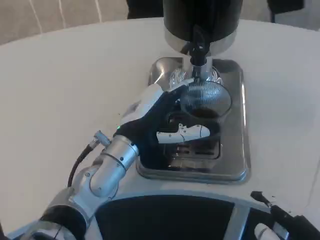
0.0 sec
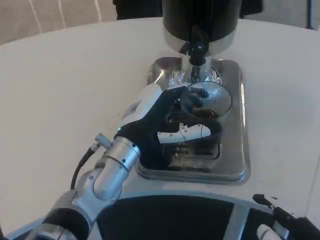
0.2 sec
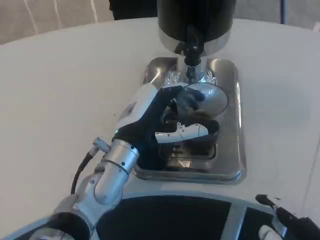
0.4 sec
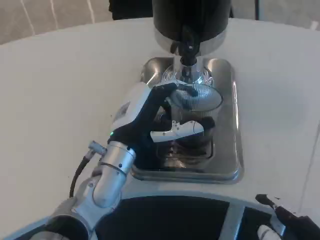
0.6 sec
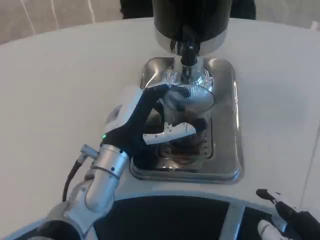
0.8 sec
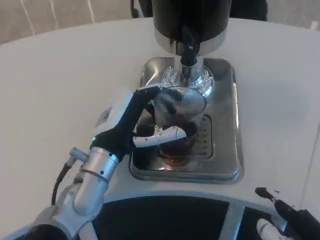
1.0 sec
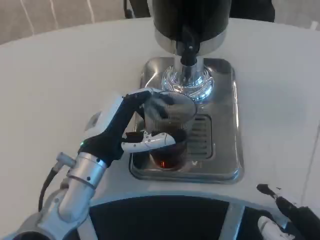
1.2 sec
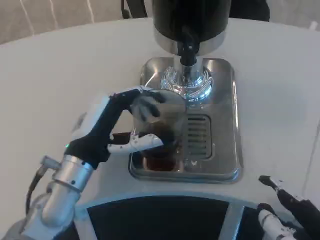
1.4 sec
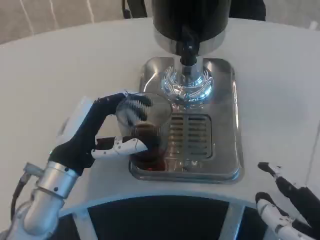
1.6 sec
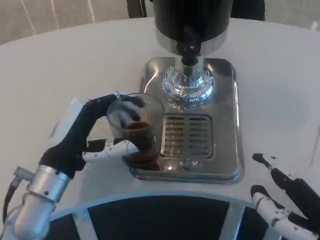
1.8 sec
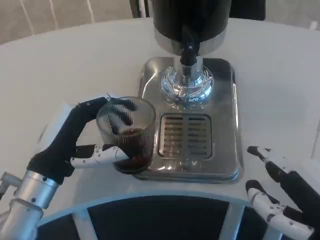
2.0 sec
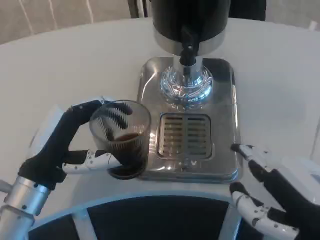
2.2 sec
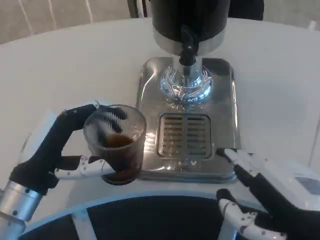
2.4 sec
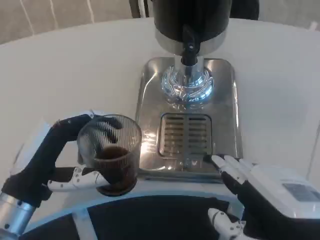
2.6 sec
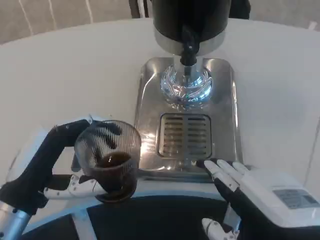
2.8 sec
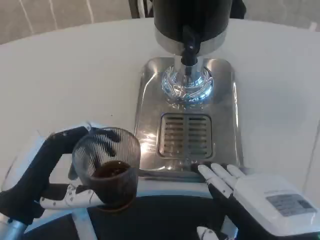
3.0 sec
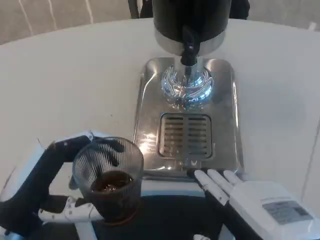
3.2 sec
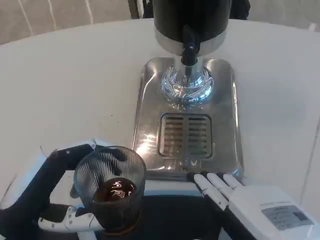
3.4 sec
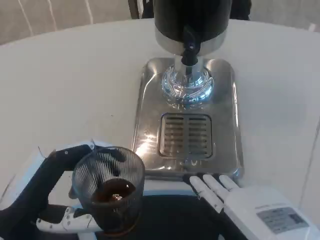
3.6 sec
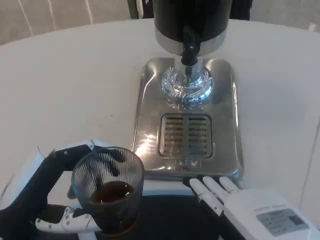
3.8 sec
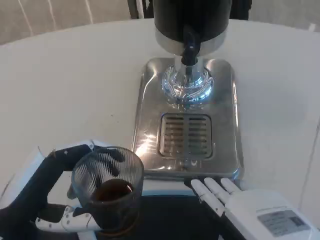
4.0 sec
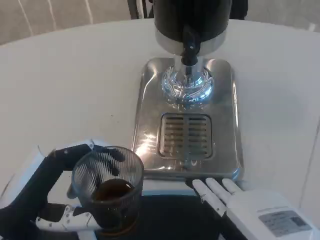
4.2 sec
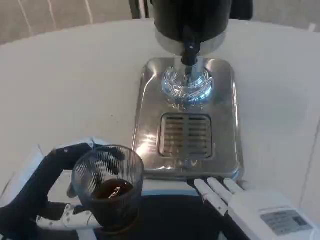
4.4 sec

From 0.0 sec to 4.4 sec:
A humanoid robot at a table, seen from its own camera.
Task of the whole recording: Grasp the cup under the faucet to collect the drink, then remove the cup.
From 0.0 sec to 1.4 sec: The left hand goes approximately 5 cm to the left.
From 1.4 sec to 3.0 sec: The left hand moves backward and to the left, some 10 cm.
From 3.0 sec to 4.4 sec: The hands stay close to where they were, moving slightly.

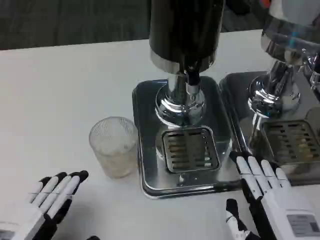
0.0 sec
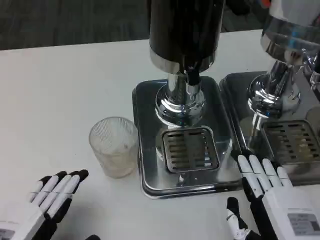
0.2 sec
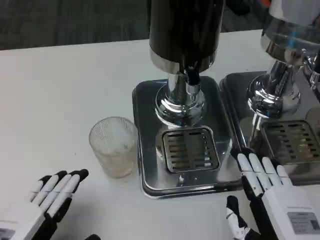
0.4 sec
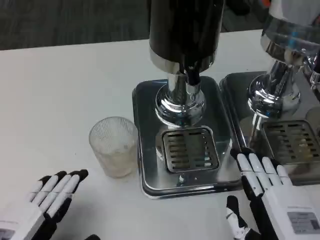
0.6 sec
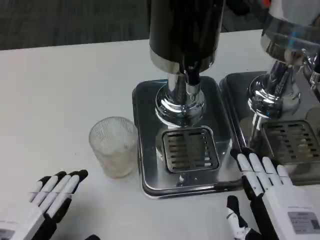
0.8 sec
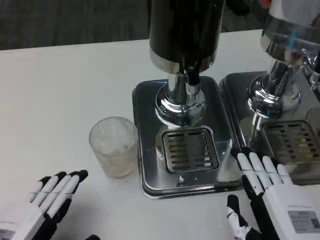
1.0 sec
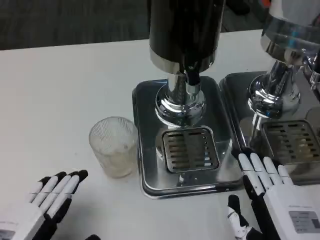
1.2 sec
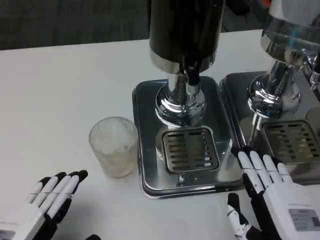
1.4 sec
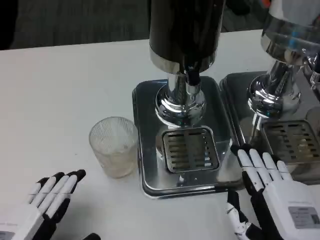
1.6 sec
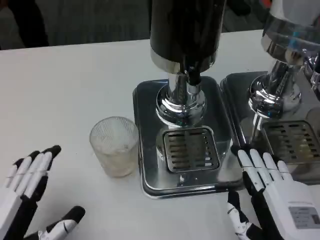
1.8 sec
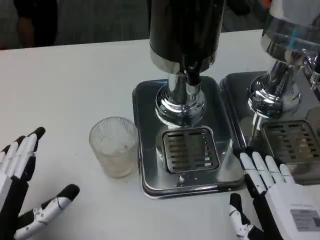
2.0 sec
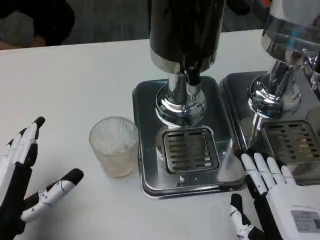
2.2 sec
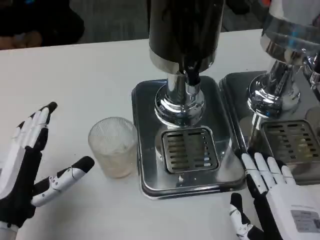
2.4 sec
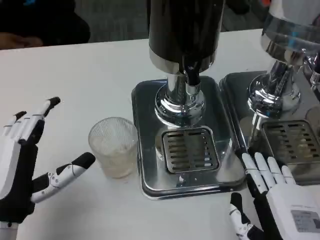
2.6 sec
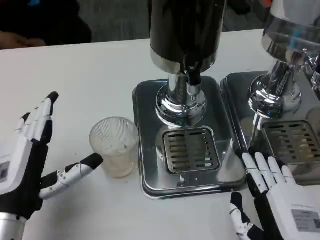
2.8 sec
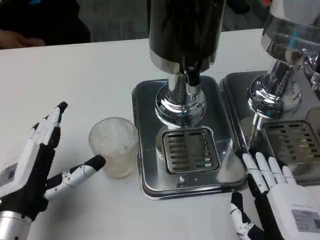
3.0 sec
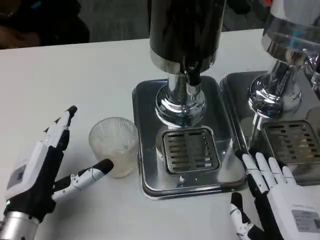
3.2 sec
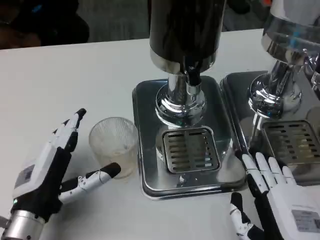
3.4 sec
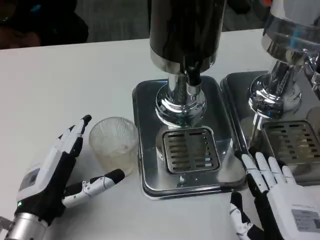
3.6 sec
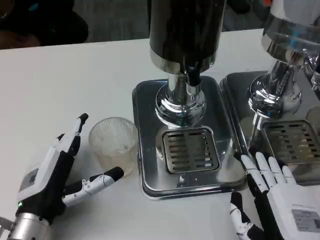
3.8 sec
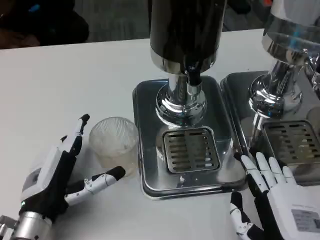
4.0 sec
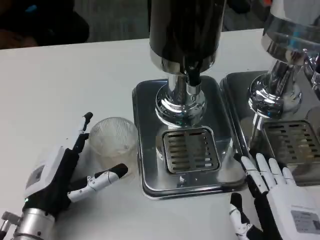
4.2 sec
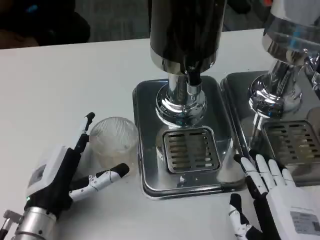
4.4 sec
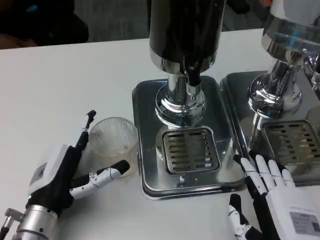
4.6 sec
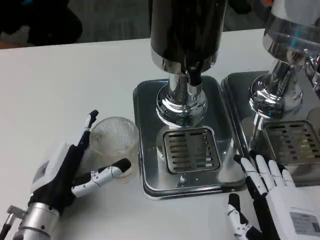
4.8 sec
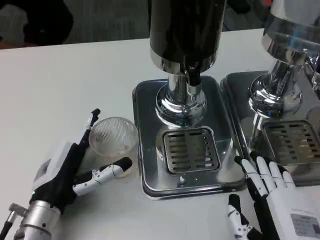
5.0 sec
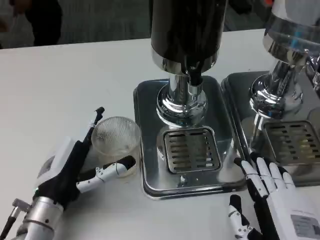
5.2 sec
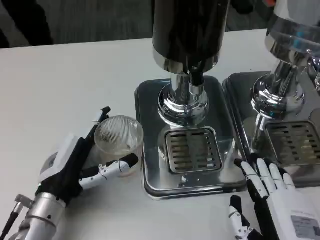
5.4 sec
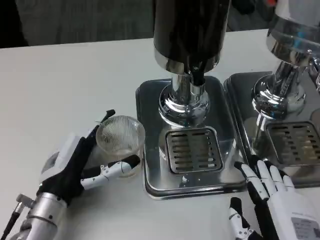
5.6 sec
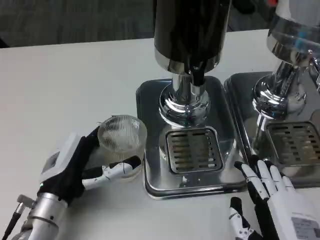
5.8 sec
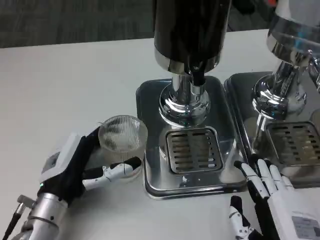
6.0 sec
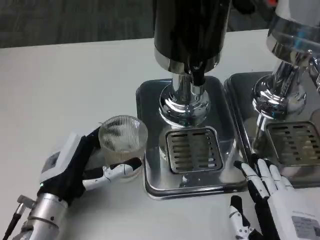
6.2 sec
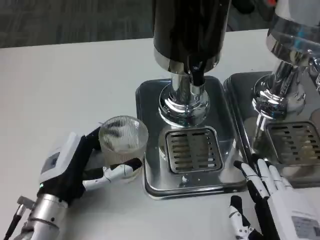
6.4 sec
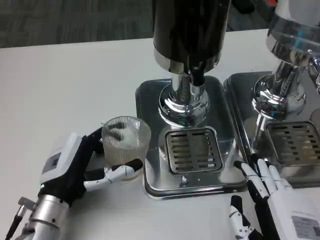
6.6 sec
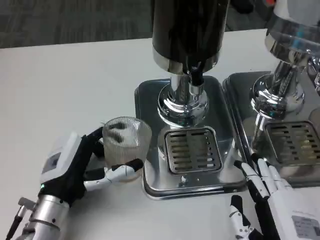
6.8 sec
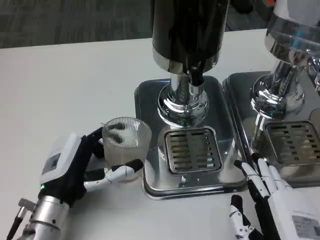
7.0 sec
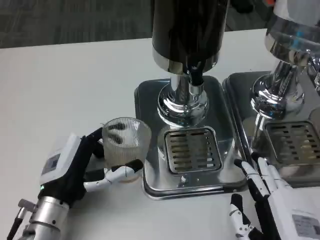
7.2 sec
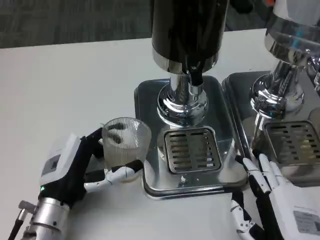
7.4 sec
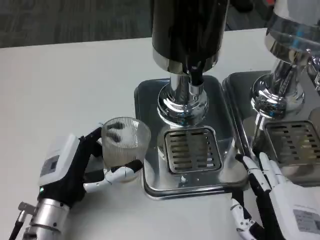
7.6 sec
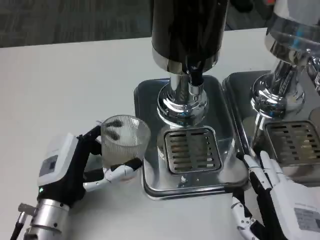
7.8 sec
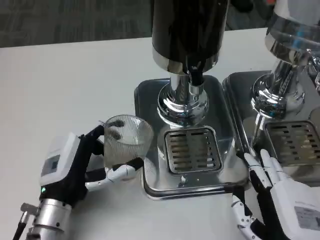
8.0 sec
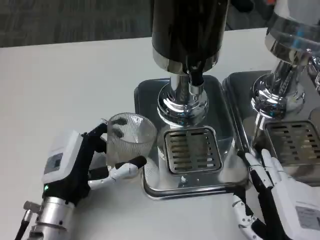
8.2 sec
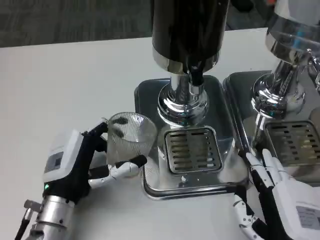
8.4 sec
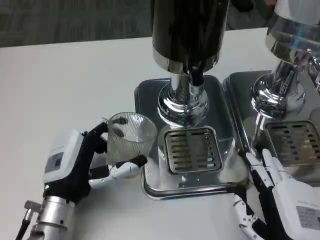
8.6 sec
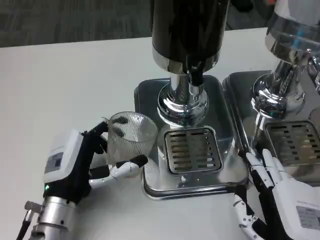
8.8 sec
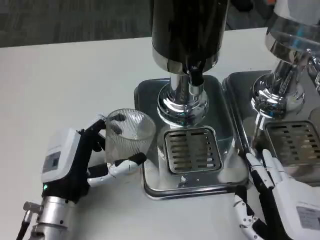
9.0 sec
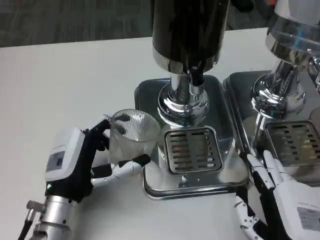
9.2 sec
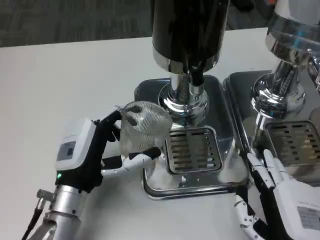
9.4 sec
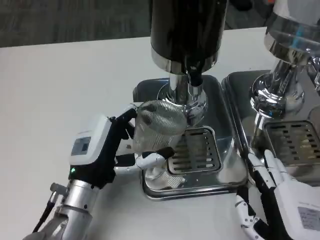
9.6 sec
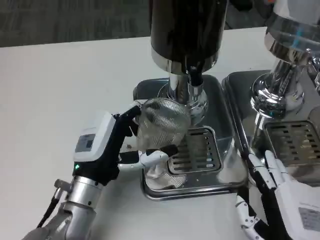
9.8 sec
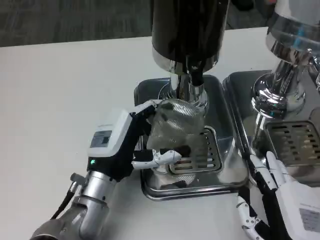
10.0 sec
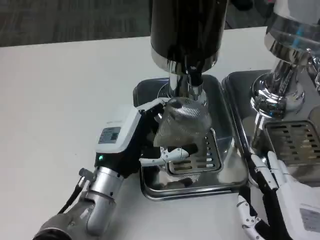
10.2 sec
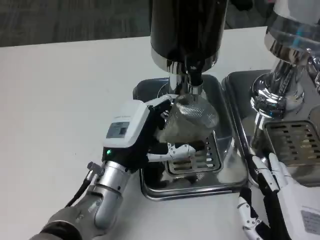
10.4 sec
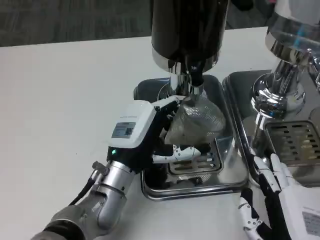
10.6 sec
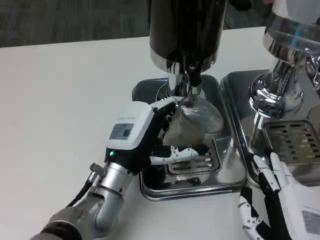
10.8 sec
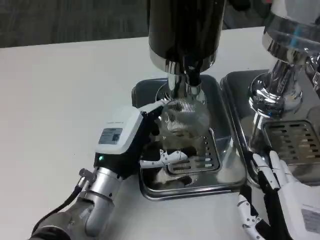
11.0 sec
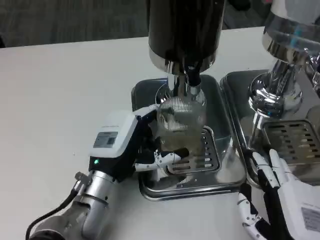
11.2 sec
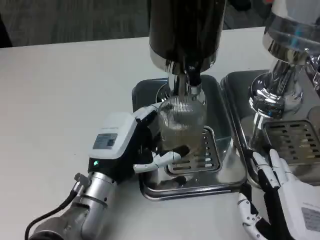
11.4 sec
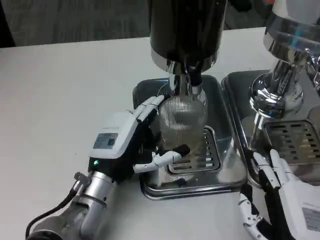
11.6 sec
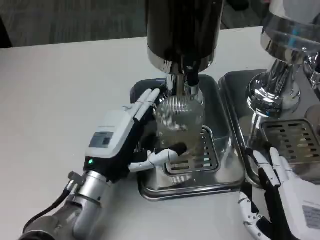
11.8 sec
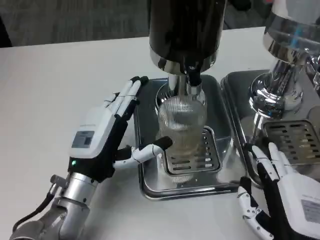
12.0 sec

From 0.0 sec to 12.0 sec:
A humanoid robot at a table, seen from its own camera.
Task of the whole recording: Grasp the cup under the faucet to collect the drink, then remove the cup.
From 0.0 sec to 1.6 sec: Neither hand changes place.
From 1.6 sec to 3.0 sec: The left hand travels forward by about 10 cm.
From 3.0 sec to 4.4 sec: The hands make only small movements.
From 6.0 sec to 9.0 sec: The hands stay close to where they were, moving slightly.
From 9.0 sec to 10.4 sec: The left hand heads to the right and forward, covering approximately 10 cm.
From 10.4 sec to 12.0 sec: The left hand ends up about 5 cm from where it was.

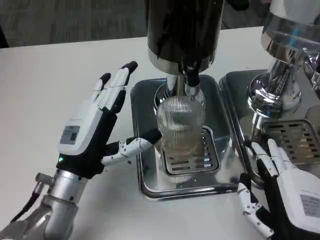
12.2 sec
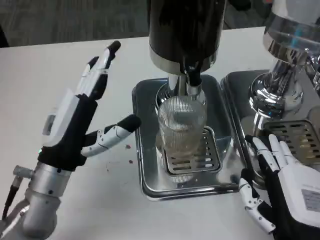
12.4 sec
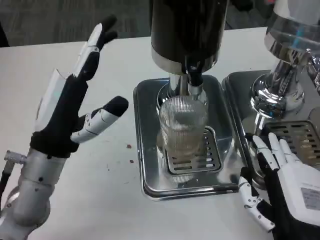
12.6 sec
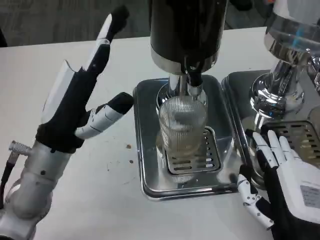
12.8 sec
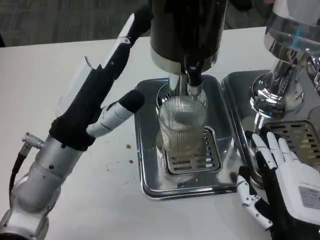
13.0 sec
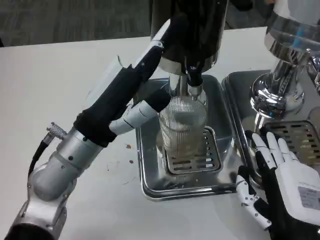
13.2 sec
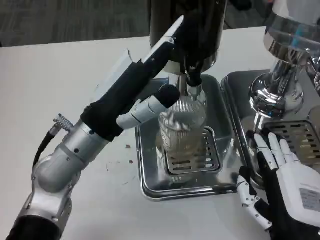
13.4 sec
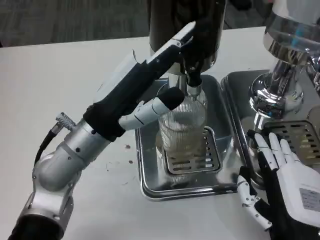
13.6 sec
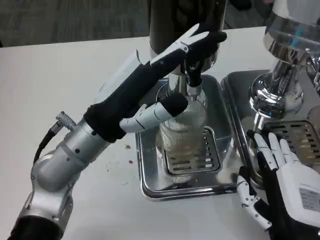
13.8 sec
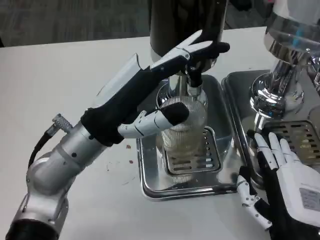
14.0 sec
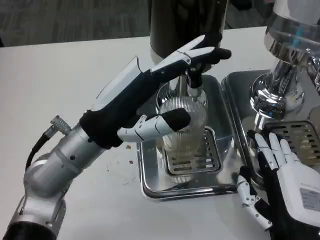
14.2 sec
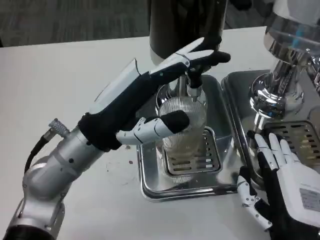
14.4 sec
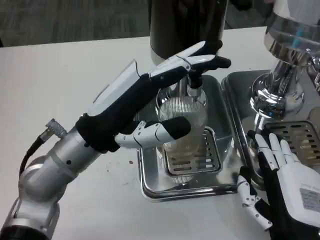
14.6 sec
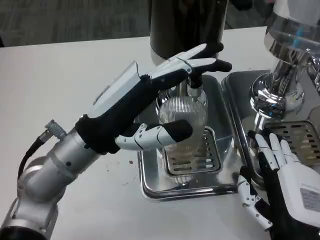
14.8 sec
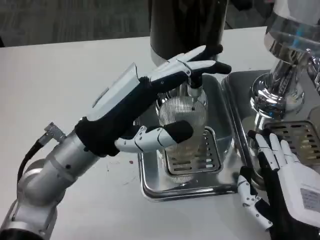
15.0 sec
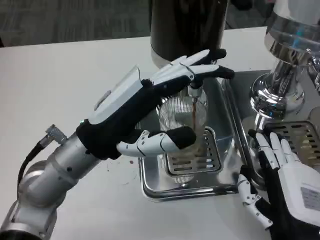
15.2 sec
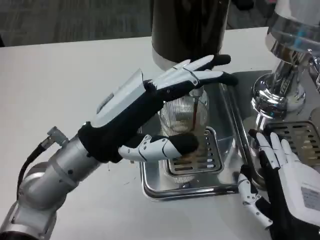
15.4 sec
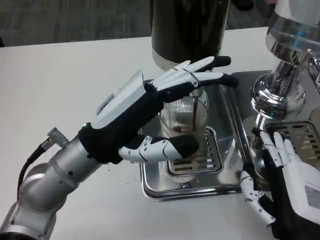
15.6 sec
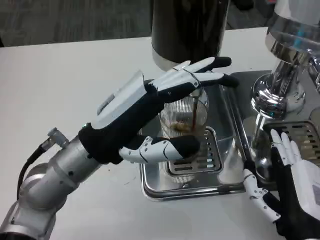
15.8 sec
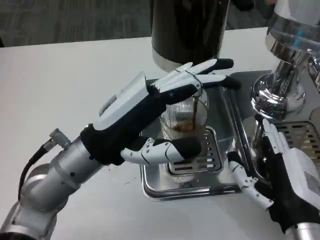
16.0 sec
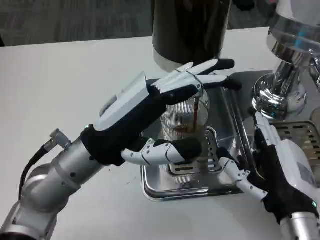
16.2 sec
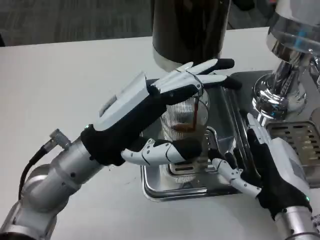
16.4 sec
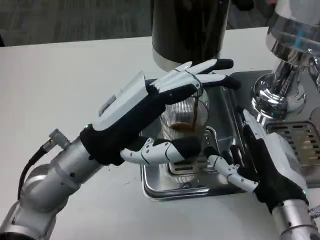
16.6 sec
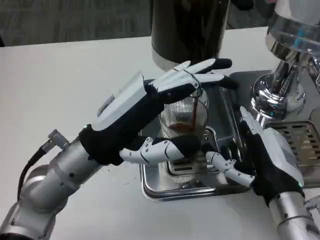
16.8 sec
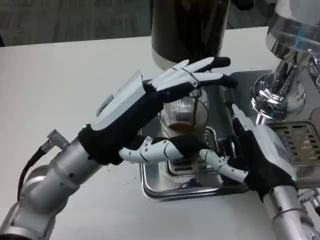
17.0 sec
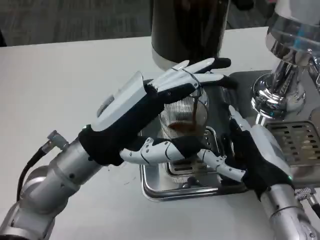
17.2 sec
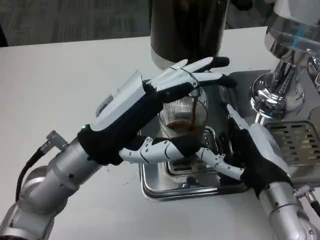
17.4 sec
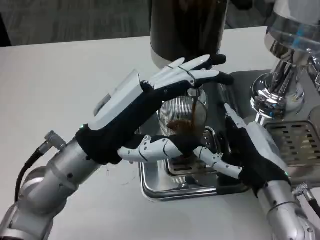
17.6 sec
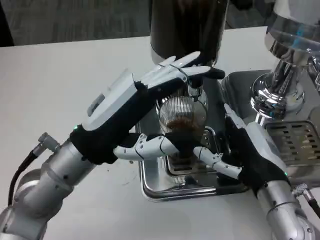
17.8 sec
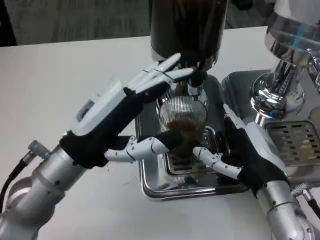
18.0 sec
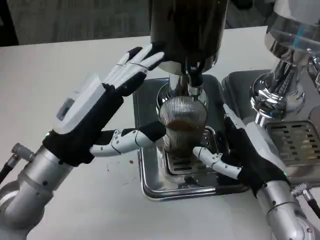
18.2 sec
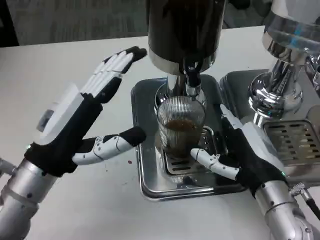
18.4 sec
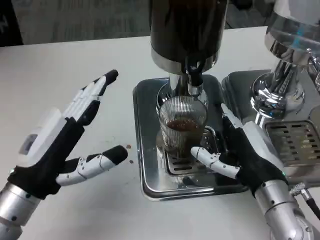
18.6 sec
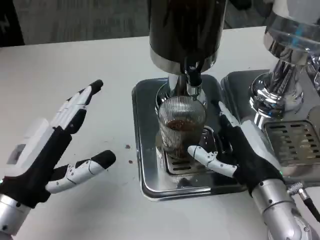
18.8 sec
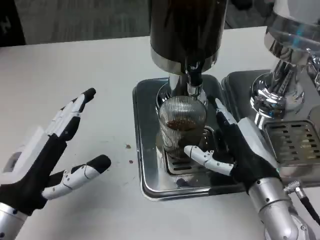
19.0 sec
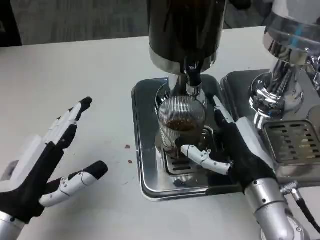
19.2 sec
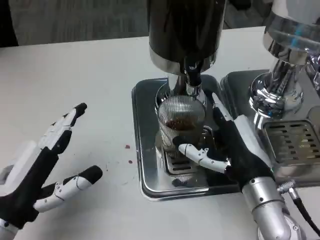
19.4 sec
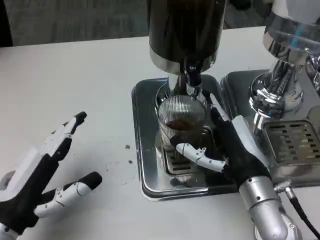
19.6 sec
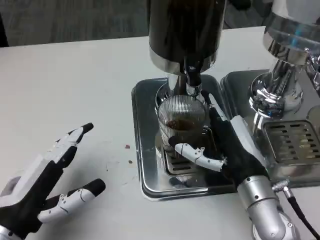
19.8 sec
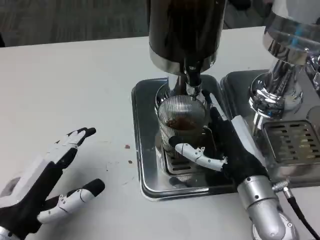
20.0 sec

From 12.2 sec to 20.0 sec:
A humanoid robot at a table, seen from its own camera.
Task of the whole recording: Grasp the cup under the faucet to collect the drink, then remove the cup.
From 12.2 sec to 13.8 sec: The left hand shifts about 10 cm upward.
From 15.4 sec to 16.8 sec: The right hand shifts approximately 5 cm forward.
From 16.8 sec to 18.4 sec: The left hand goes roughly 5 cm to the left.
From 18.4 sec to 20.0 sec: The left hand moves backward and downward, some 10 cm.
